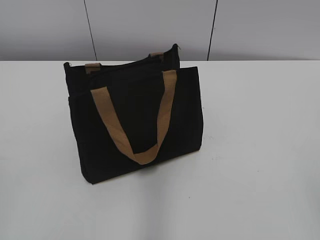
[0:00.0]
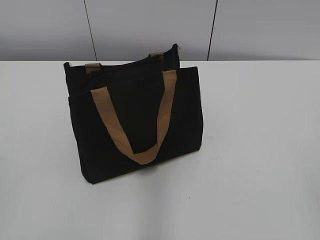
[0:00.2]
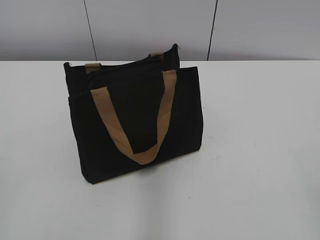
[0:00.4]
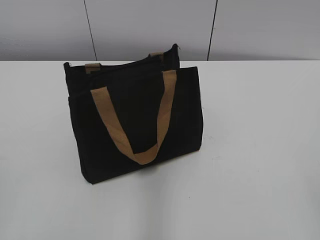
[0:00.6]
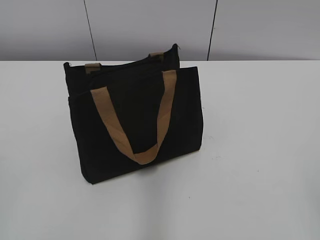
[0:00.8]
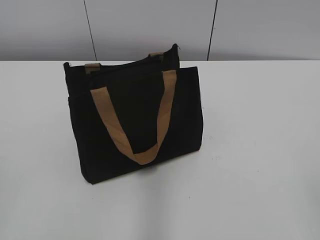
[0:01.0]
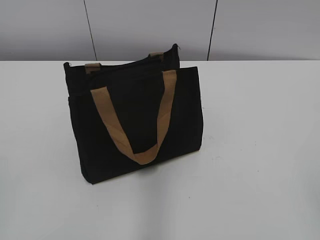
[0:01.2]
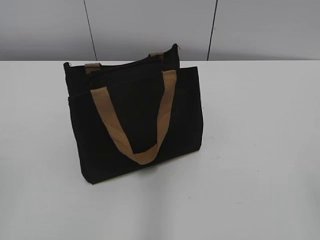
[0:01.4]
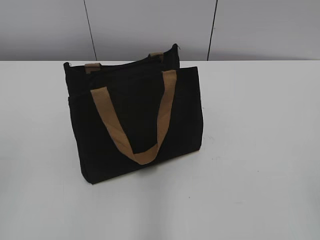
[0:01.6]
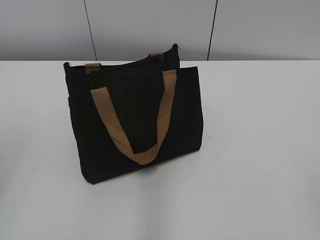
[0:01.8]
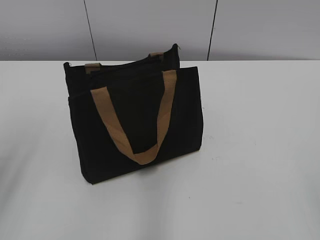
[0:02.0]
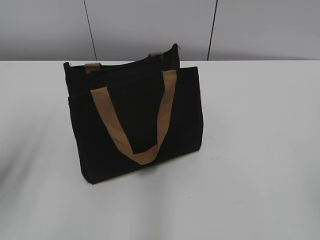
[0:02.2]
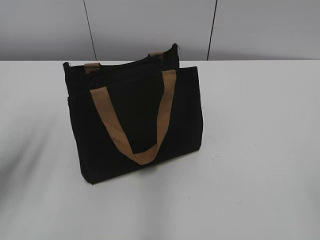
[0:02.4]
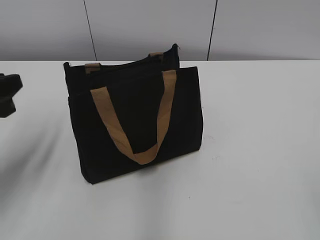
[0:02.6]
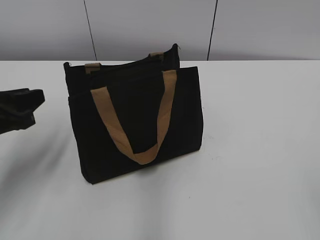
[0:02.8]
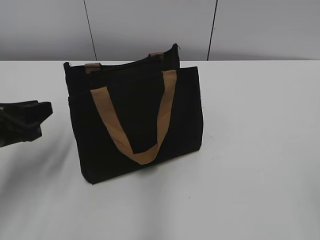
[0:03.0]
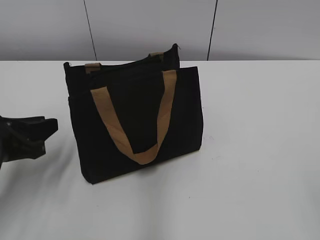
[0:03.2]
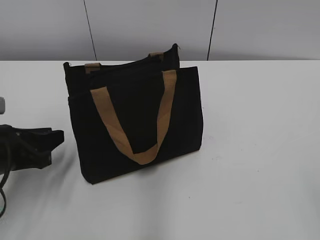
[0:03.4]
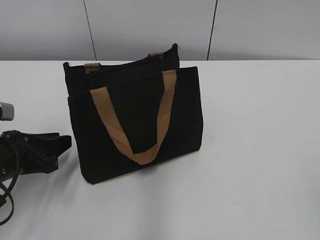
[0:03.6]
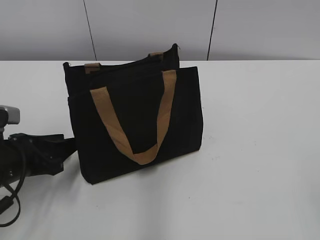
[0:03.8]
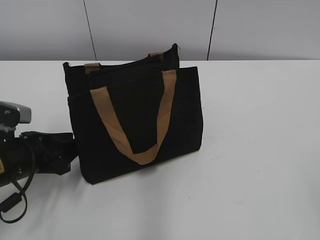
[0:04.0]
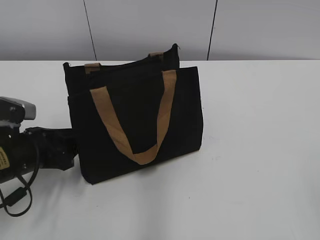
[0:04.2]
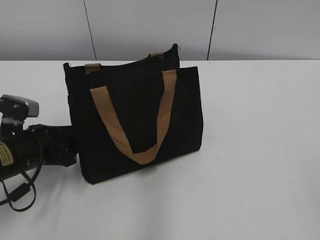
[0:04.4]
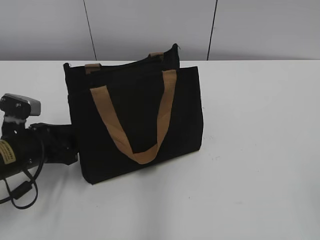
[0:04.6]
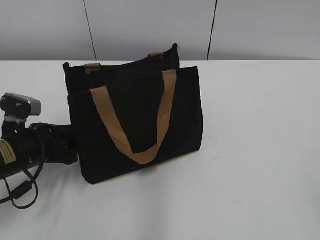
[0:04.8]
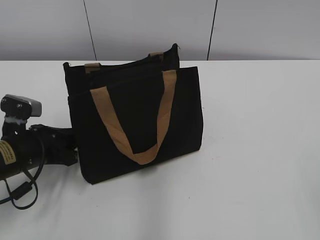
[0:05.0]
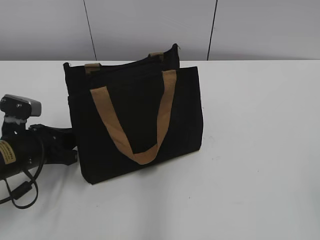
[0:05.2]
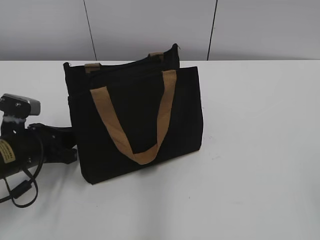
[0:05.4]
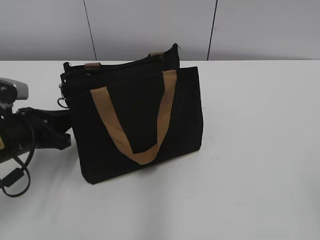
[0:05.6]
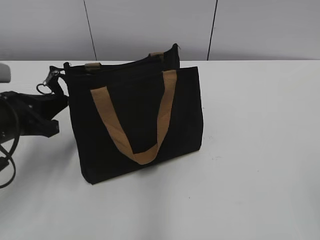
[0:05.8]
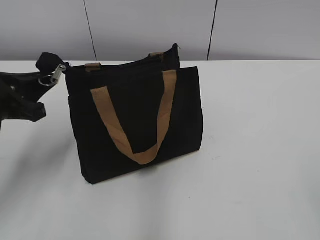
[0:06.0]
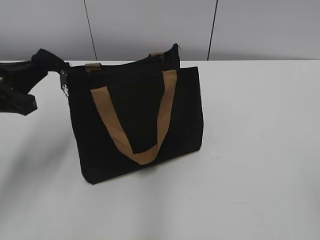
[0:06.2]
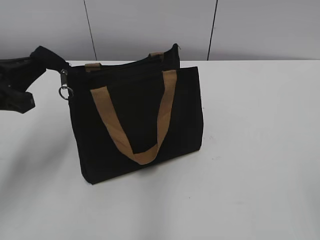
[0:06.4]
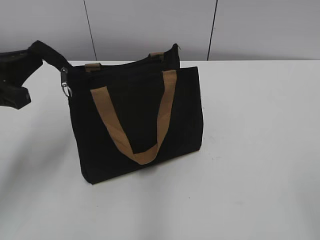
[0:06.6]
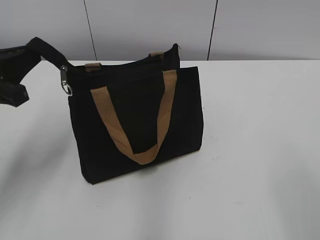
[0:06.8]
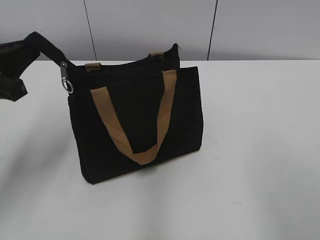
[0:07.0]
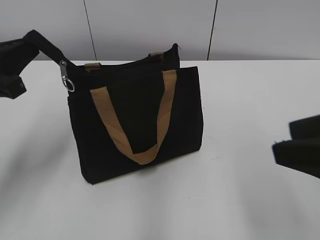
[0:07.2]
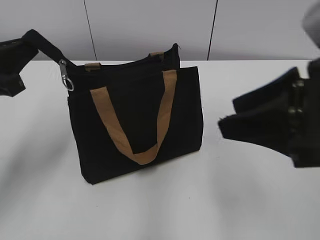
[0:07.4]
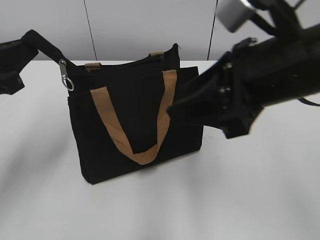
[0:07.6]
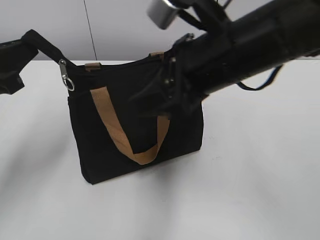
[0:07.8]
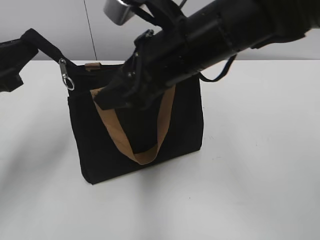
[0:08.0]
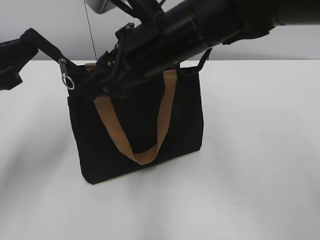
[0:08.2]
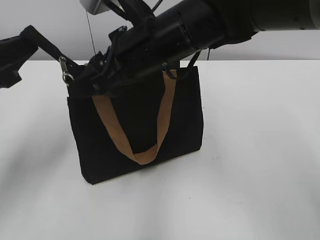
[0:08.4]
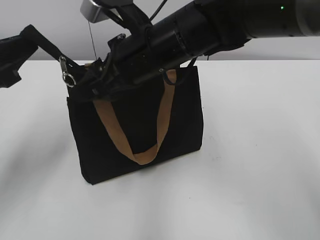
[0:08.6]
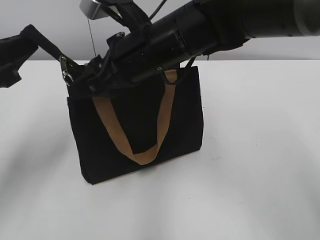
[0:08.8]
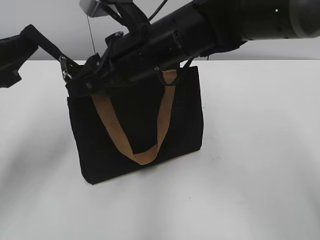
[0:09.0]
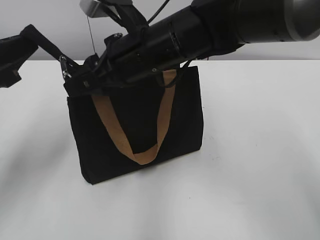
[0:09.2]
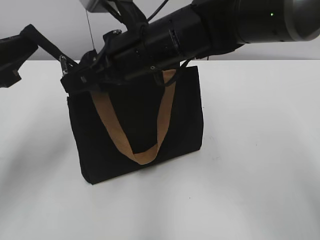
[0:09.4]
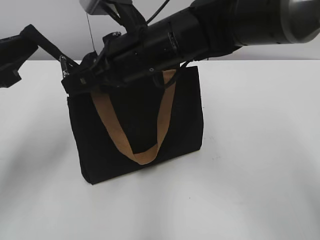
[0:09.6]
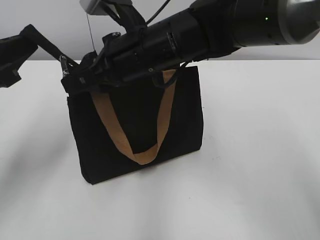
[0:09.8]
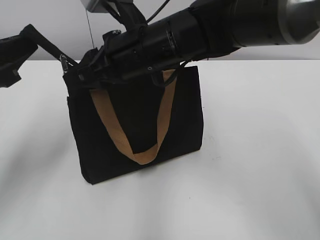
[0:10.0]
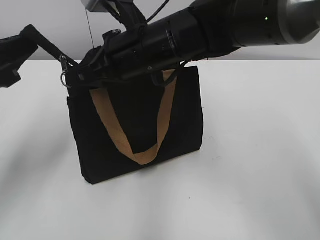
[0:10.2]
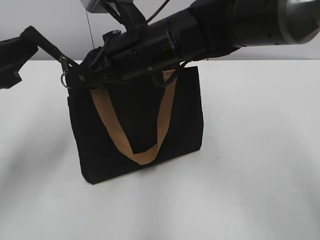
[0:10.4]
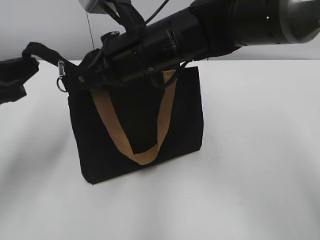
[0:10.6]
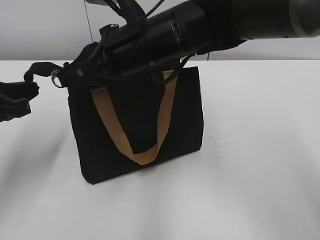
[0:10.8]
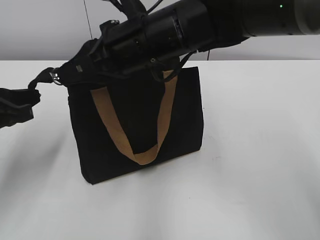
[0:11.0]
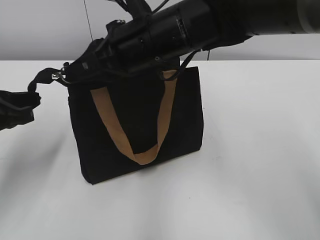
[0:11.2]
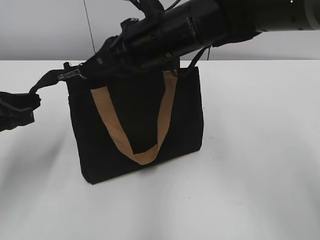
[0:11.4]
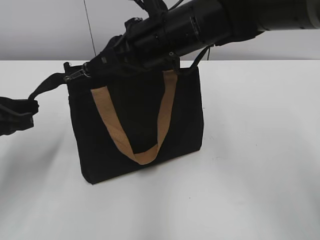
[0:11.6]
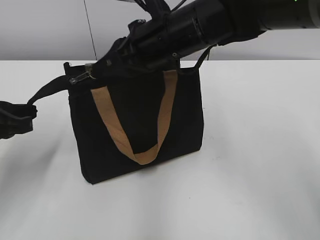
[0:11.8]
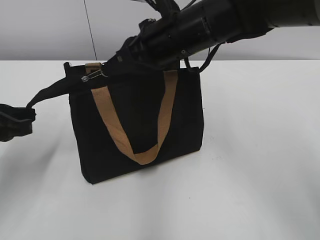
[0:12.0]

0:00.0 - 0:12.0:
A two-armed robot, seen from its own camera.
0:01.6 - 0:03.0: The left gripper is displaced forward and downward by approximately 25 cm.
0:03.0 - 0:04.4: The left gripper travels downward by approximately 10 cm.
0:04.4 - 0:06.0: The left gripper travels upward by roughly 10 cm, and closes its fingers.
0:06.0 - 0:07.6: The left gripper is displaced upward by roughly 5 cm. Meanwhile the right gripper goes approximately 25 cm forward and to the left.
0:07.6 - 0:09.0: The right gripper goes roughly 20 cm to the left and forward.
0:09.0 - 0:10.4: The right gripper closes its fingers.
0:10.4 - 0:12.0: The left gripper heads downward, covering some 5 cm.

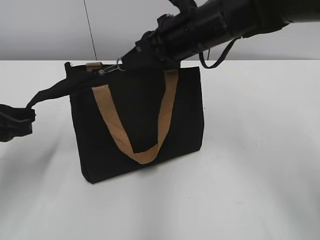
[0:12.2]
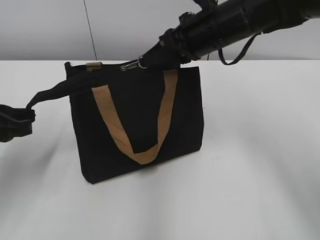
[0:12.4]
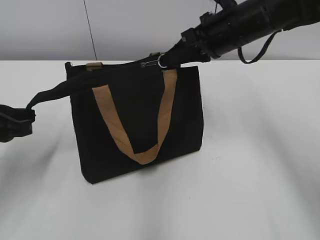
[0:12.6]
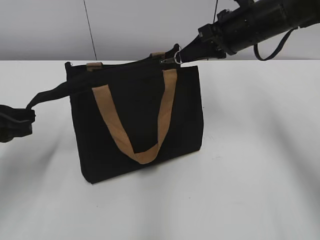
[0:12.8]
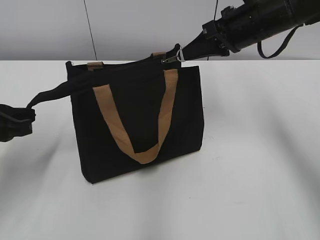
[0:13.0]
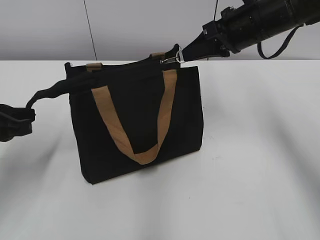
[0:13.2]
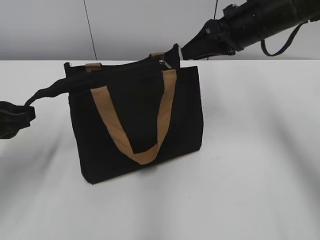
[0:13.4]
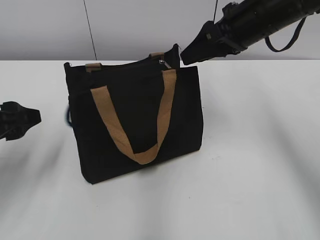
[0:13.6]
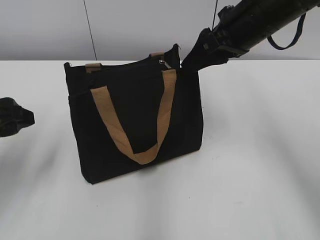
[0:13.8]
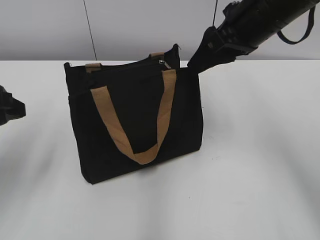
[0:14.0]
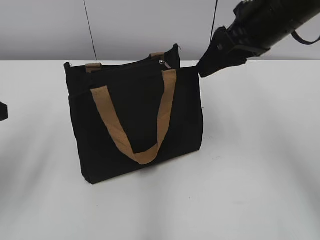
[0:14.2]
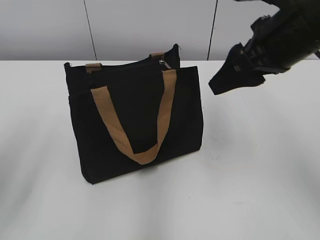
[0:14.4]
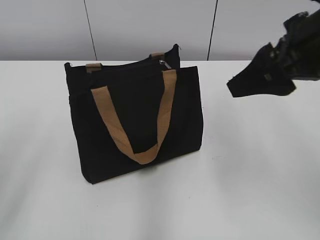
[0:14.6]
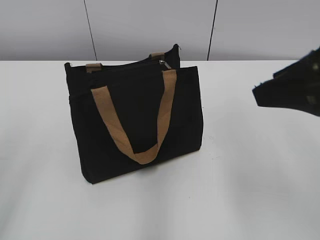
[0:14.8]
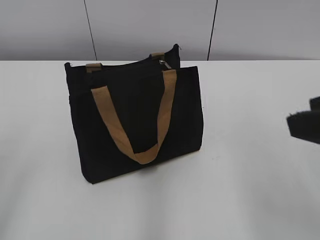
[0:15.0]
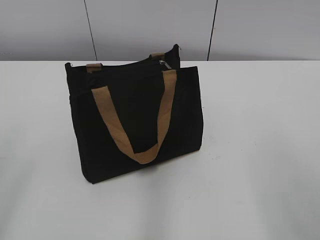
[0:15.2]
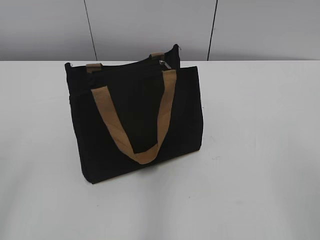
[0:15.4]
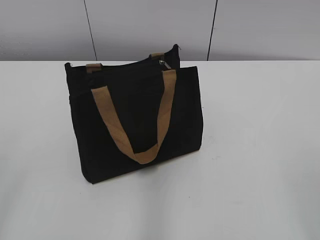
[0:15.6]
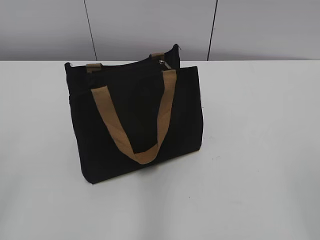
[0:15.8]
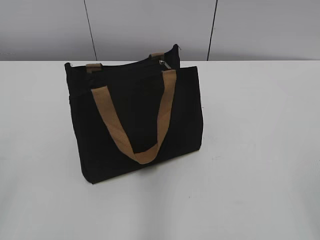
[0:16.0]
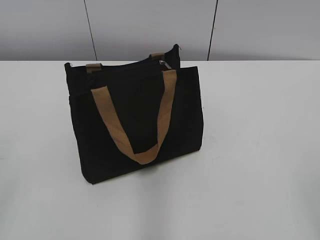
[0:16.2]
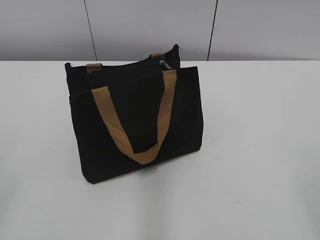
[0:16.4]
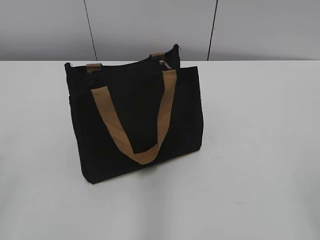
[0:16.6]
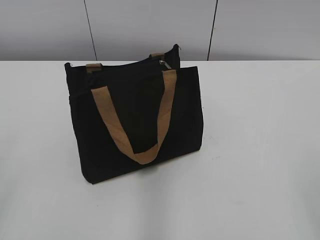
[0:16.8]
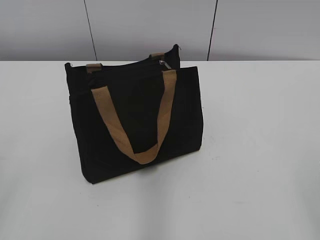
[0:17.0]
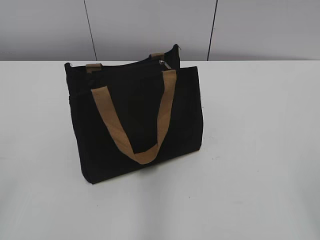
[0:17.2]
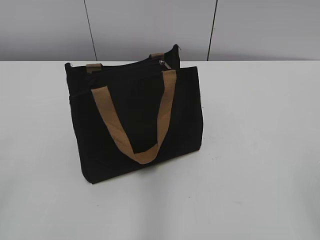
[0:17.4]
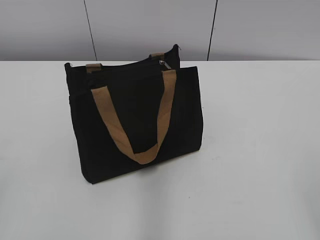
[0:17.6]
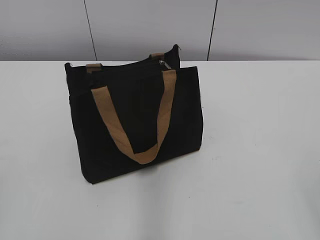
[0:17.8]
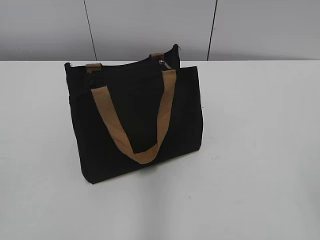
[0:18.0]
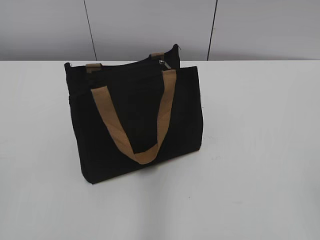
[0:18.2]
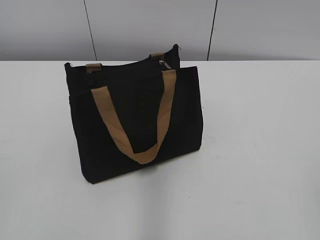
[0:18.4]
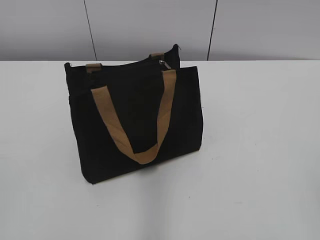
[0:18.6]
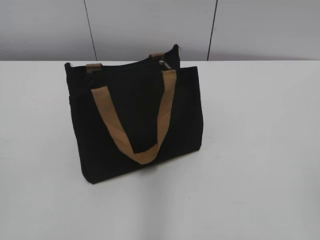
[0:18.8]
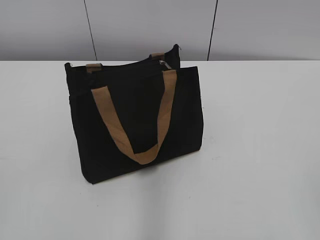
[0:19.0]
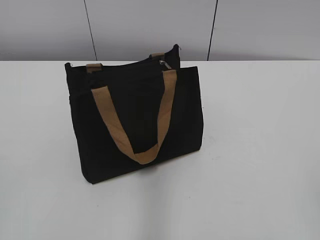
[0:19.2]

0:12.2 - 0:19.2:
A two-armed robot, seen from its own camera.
0:12.2 - 0:13.6: The right gripper shifts some 10 cm to the right, and opens its fingers; the left gripper opens up.
0:13.6 - 0:15.0: The left gripper heads backward and upward, covering about 15 cm; the right gripper travels backward by roughly 20 cm.
0:15.0 - 0:16.4: The right gripper is displaced backward and to the right by some 15 cm.

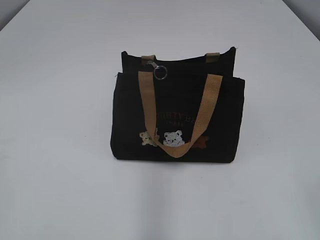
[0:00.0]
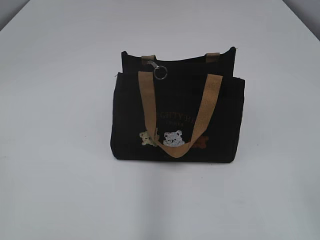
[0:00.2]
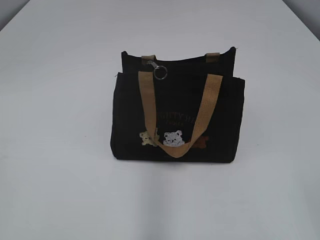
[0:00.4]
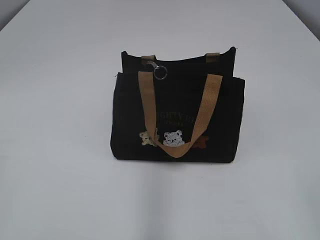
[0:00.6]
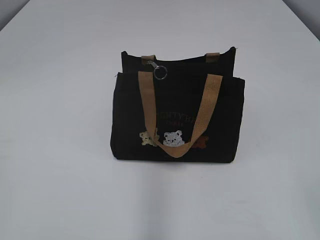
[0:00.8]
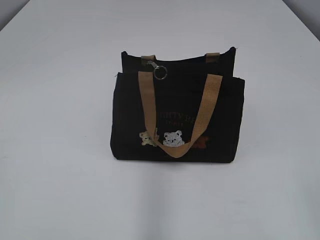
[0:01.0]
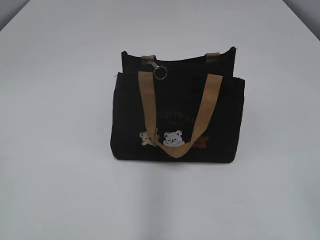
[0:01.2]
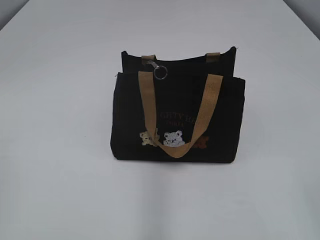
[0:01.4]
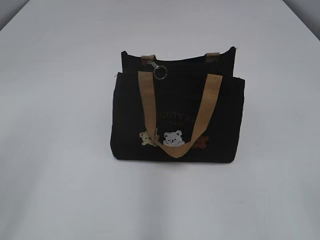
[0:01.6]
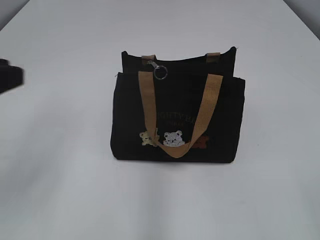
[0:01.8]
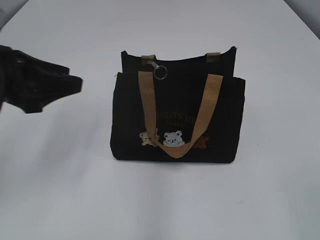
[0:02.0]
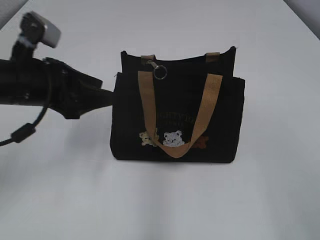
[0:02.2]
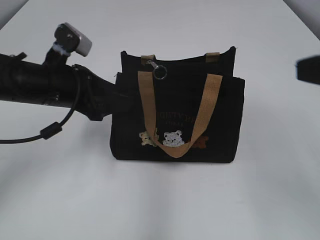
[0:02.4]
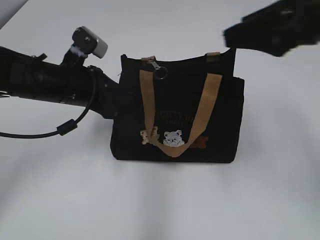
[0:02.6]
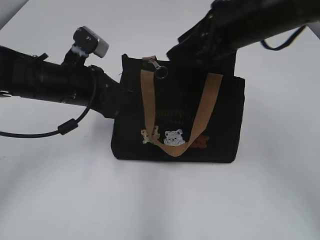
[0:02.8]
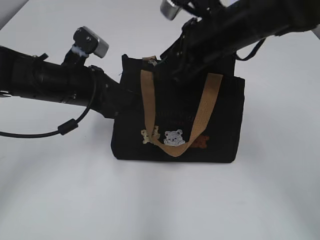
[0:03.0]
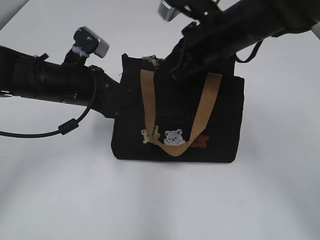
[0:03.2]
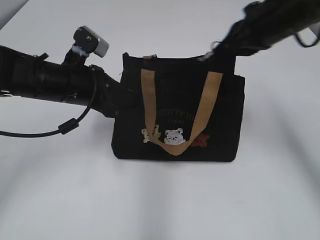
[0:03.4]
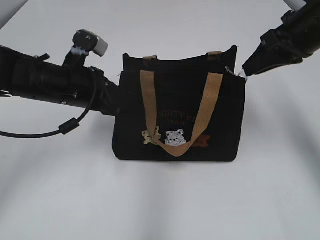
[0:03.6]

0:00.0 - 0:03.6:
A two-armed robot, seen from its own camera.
Step, 0:00.0 - 0:03.6: Pull open the zipper with your right hand.
0:01.8 - 0:03.6: The right gripper is displaced forward by roughly 35 cm, and closes; the left gripper is displaced forward, downward and to the right by approximately 25 cm, and closes its fingers.
